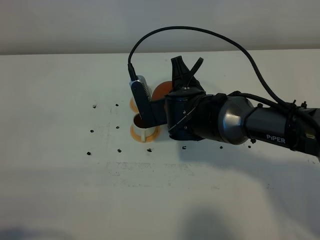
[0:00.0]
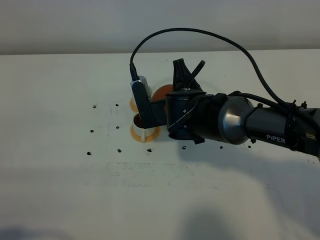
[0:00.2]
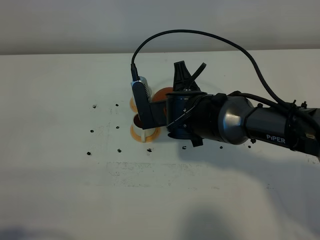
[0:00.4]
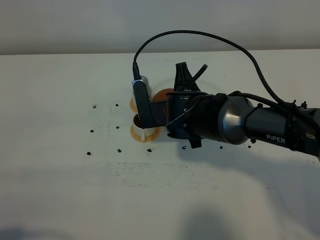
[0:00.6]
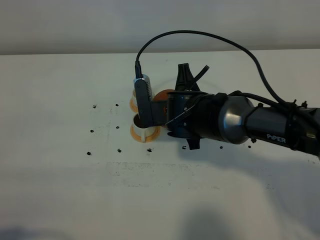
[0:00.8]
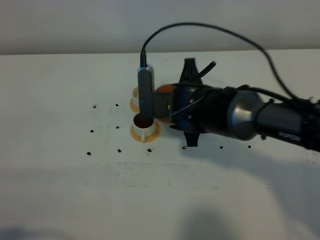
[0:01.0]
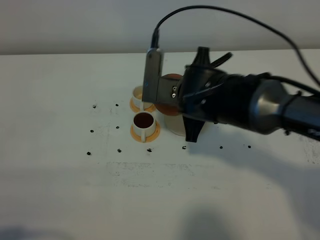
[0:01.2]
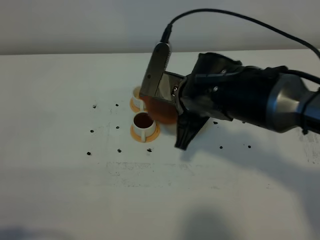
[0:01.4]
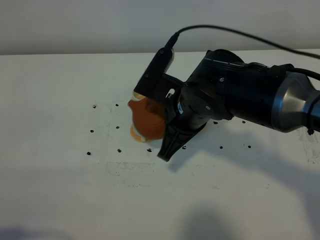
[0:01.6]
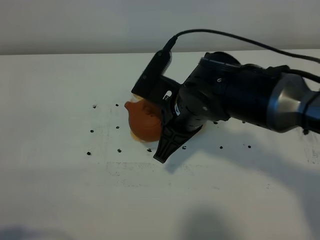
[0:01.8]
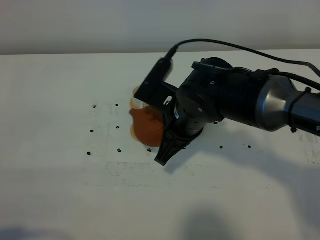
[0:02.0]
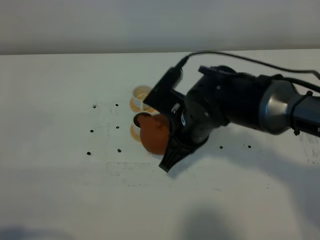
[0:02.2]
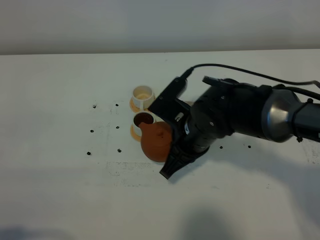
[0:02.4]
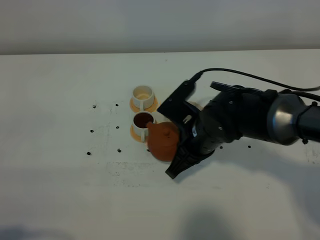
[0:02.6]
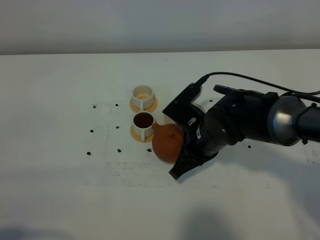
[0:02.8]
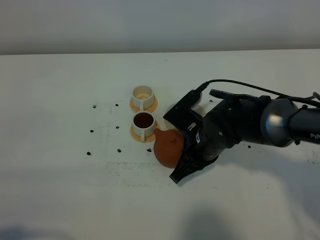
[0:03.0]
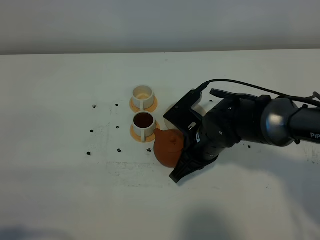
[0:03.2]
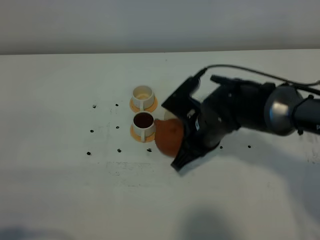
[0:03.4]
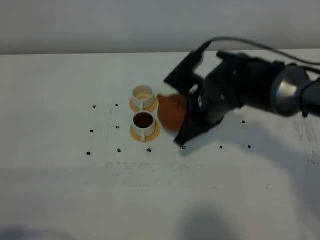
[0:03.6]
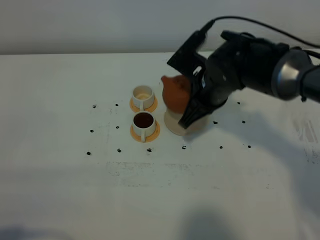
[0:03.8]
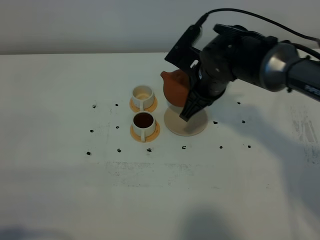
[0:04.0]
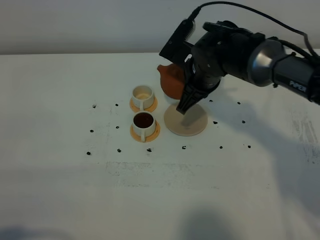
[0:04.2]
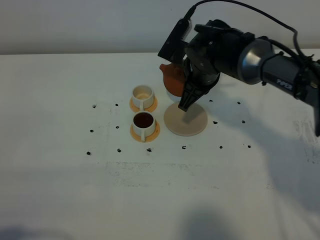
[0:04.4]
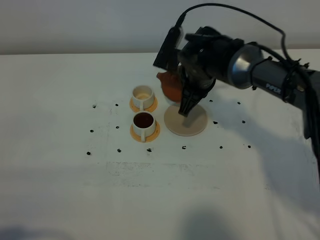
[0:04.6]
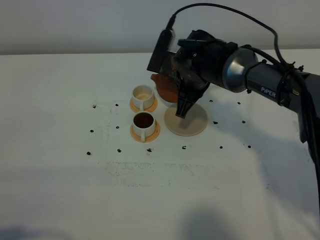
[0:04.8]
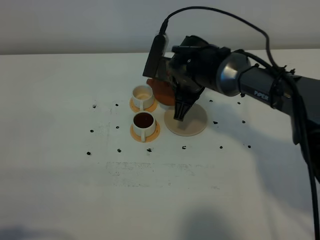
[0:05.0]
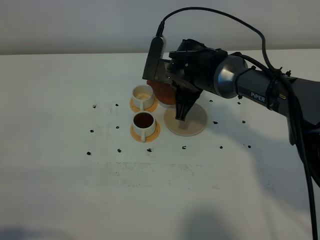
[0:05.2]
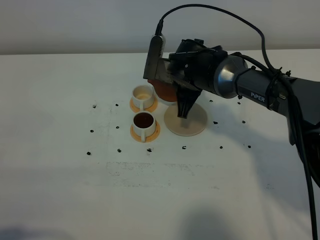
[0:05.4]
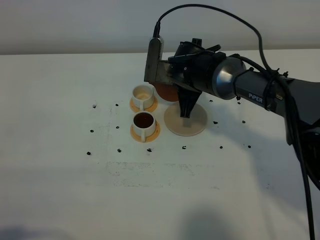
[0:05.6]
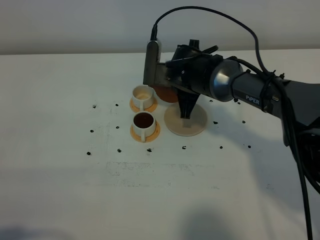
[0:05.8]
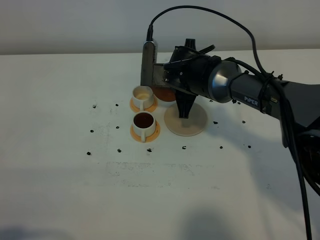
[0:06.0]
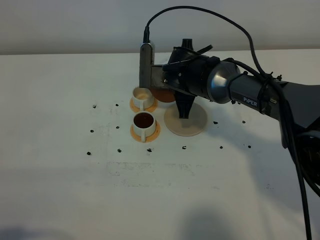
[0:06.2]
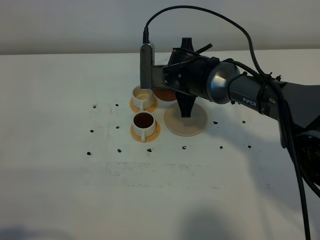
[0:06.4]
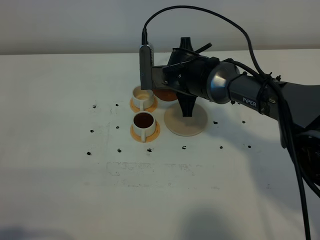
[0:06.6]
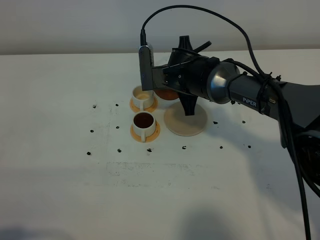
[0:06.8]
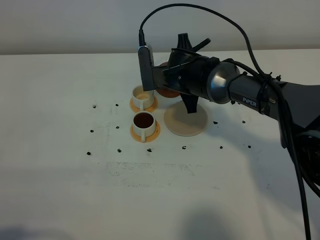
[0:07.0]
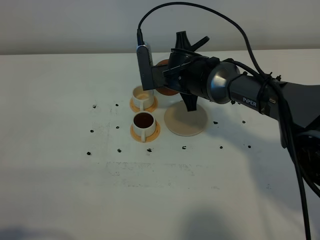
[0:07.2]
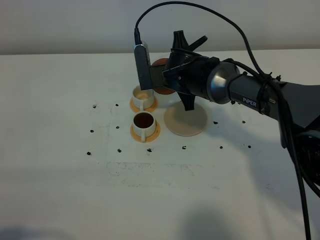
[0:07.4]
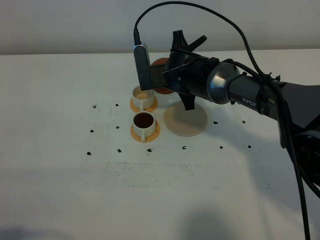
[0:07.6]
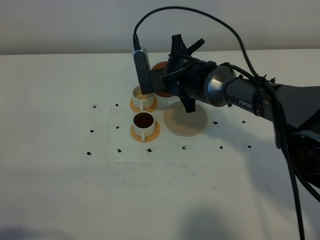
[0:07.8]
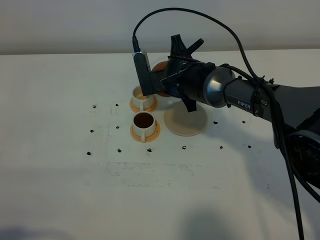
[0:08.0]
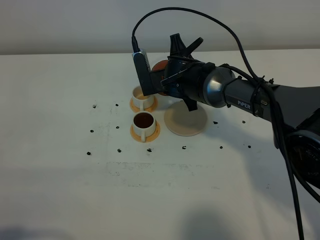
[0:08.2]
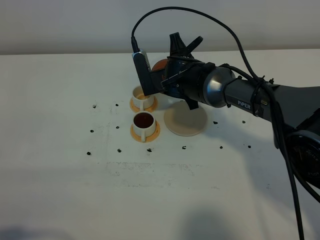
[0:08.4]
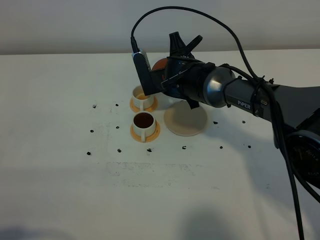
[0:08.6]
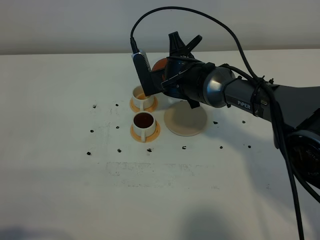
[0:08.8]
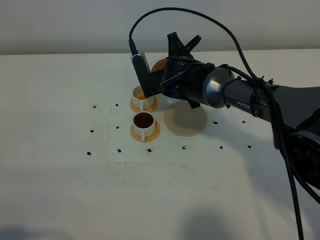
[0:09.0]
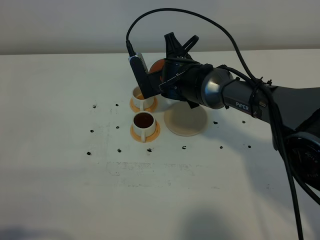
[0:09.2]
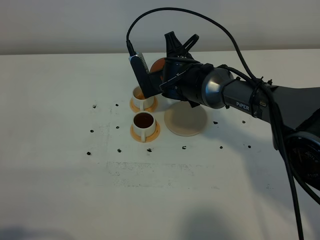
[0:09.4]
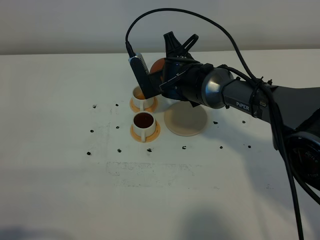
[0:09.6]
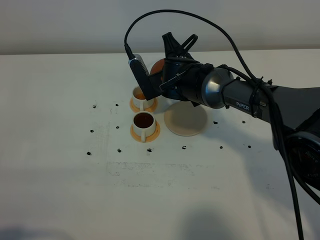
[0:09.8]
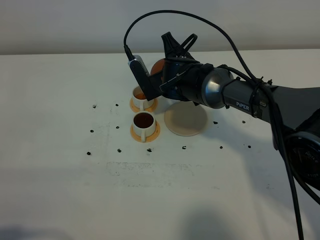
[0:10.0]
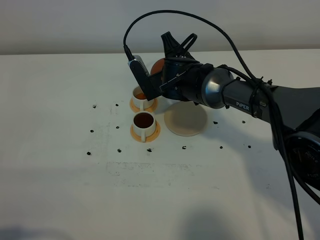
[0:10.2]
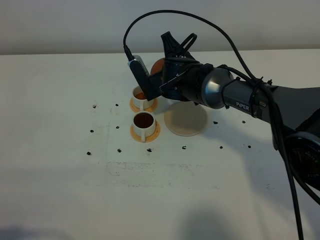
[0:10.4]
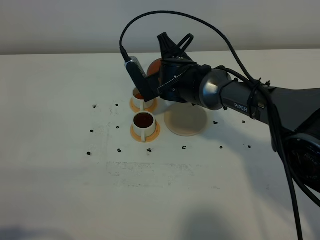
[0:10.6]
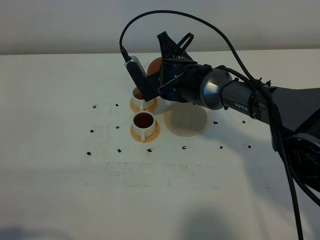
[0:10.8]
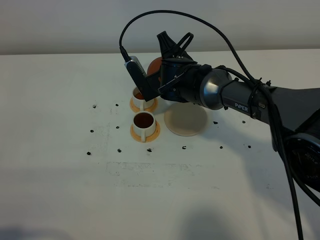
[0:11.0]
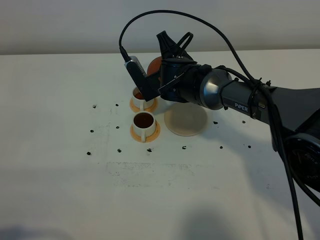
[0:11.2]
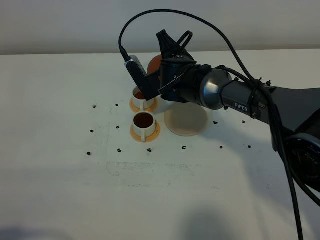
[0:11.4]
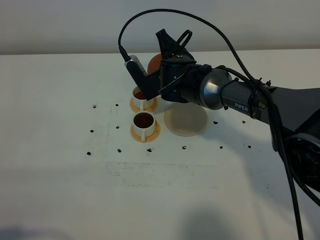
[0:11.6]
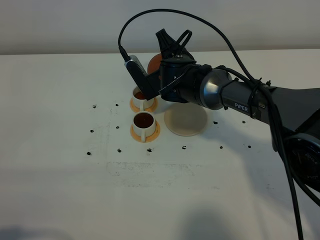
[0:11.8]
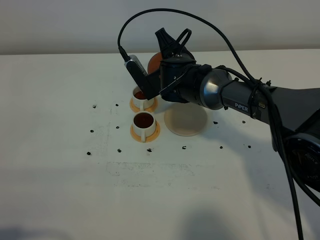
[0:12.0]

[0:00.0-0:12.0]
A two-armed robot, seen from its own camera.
Task of the whole recording: grasp the brown teapot and pour the tea into the two white teacups one by one, put the brown teapot back in its original place.
0:00.0 to 0:01.6: The right gripper heads upward and backward, covering approximately 10 cm.
0:01.6 to 0:03.0: The right gripper travels downward by some 10 cm.
0:03.0 to 0:04.4: The right gripper heads forward and upward, covering about 15 cm.
0:06.0 to 0:07.6: There are only small adjustments of the grippers.
0:07.6 to 0:10.4: The grippers stay close to where they were, moving slightly.
0:10.4 to 0:12.0: The grippers make only small movements.

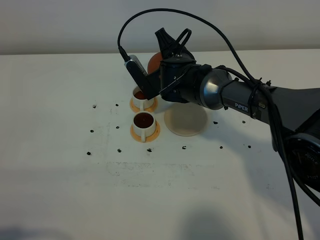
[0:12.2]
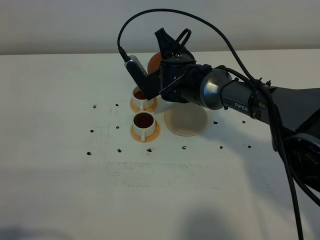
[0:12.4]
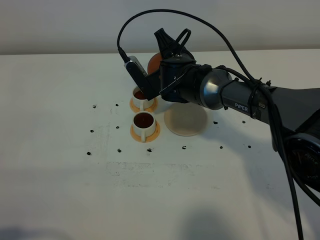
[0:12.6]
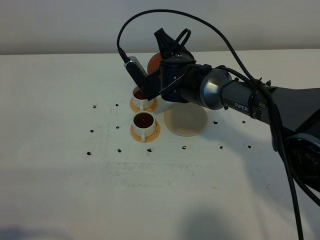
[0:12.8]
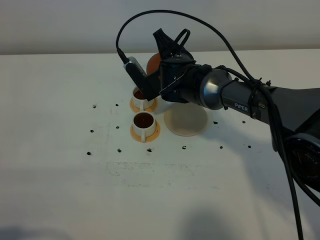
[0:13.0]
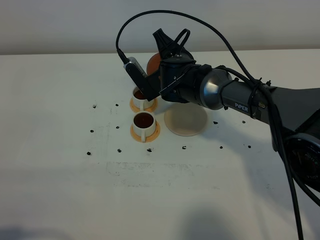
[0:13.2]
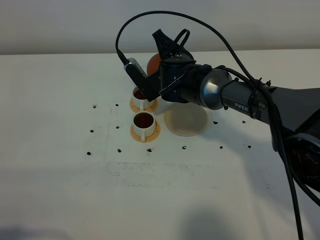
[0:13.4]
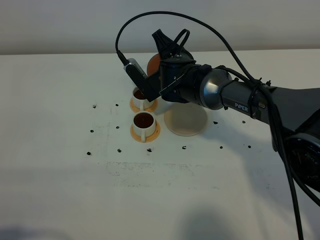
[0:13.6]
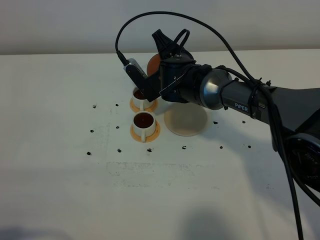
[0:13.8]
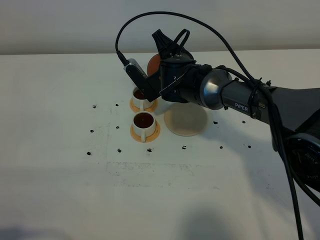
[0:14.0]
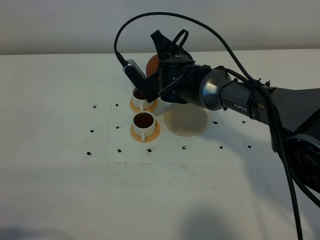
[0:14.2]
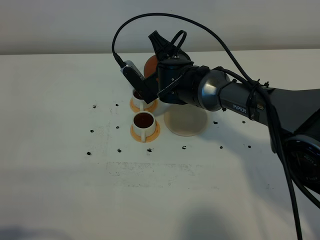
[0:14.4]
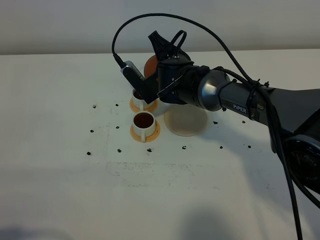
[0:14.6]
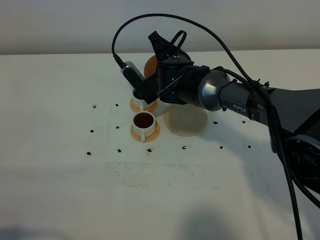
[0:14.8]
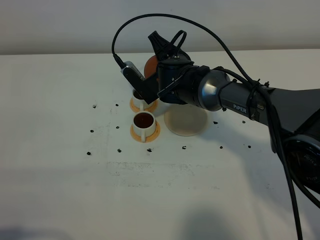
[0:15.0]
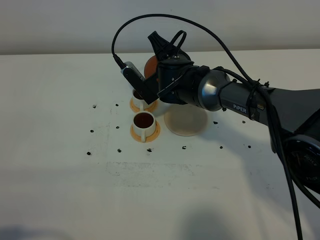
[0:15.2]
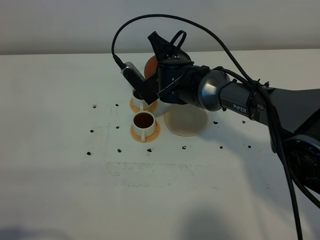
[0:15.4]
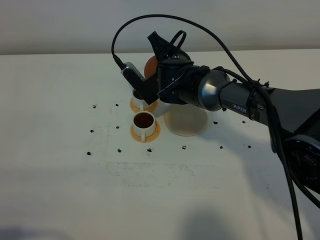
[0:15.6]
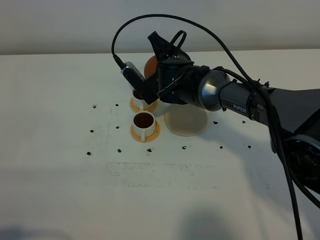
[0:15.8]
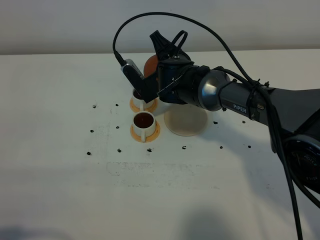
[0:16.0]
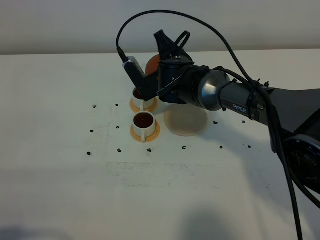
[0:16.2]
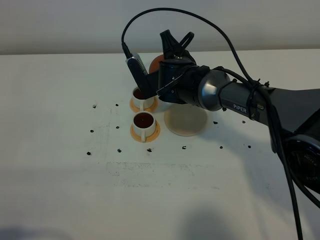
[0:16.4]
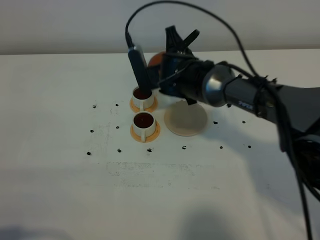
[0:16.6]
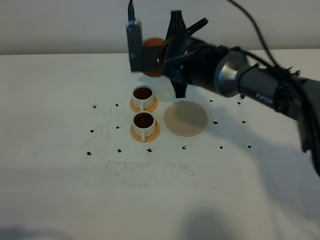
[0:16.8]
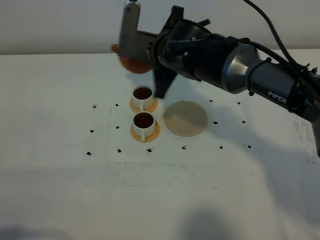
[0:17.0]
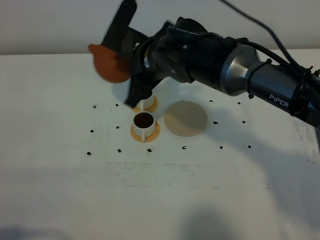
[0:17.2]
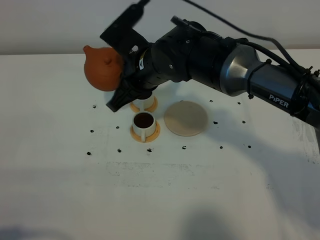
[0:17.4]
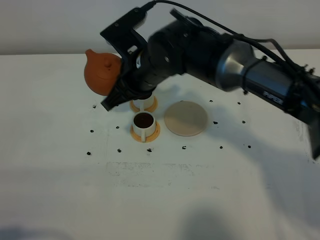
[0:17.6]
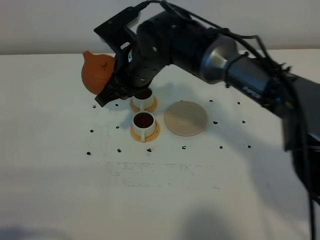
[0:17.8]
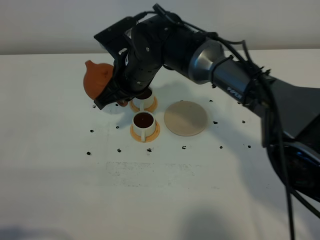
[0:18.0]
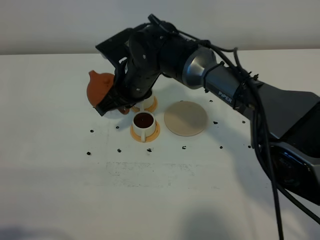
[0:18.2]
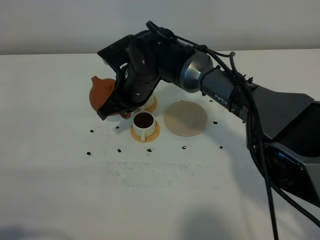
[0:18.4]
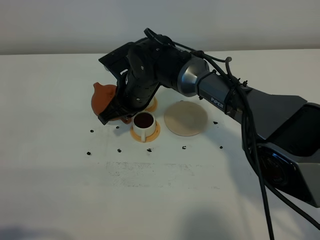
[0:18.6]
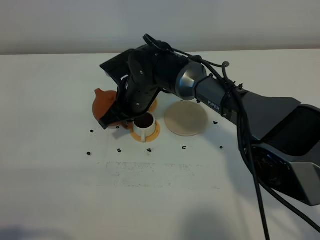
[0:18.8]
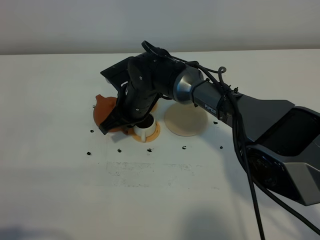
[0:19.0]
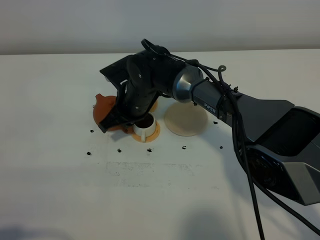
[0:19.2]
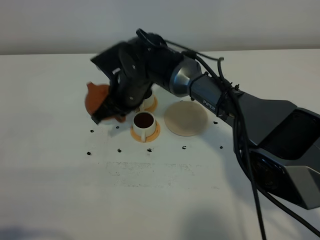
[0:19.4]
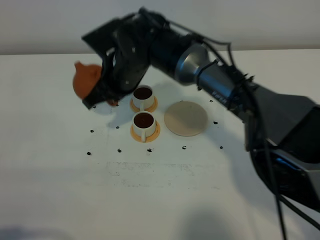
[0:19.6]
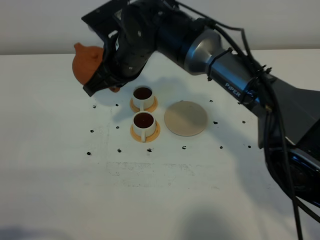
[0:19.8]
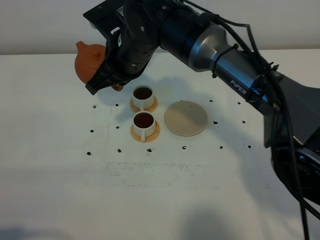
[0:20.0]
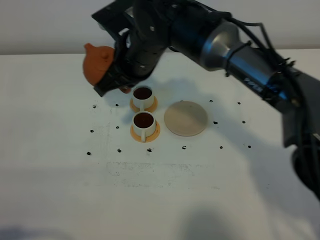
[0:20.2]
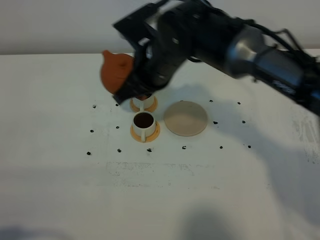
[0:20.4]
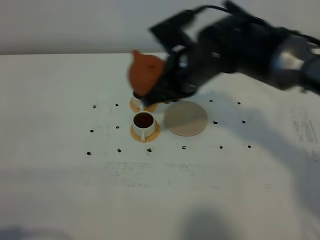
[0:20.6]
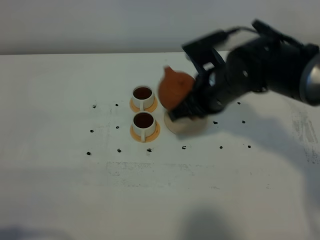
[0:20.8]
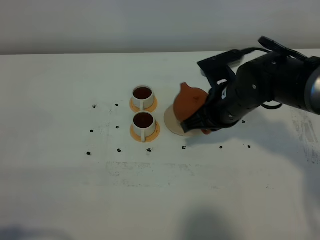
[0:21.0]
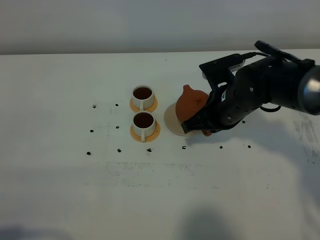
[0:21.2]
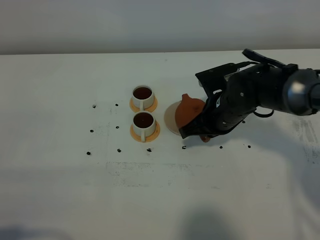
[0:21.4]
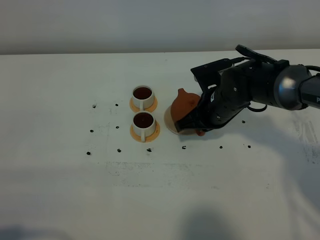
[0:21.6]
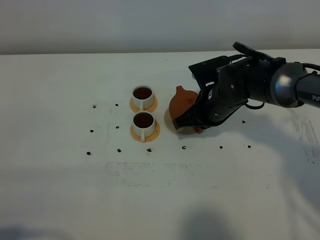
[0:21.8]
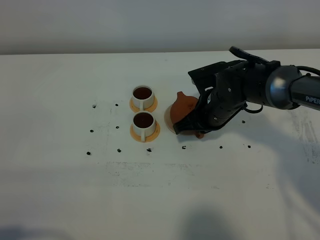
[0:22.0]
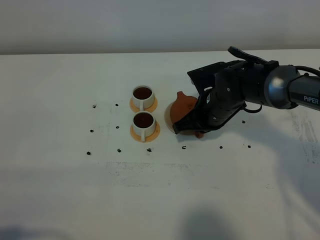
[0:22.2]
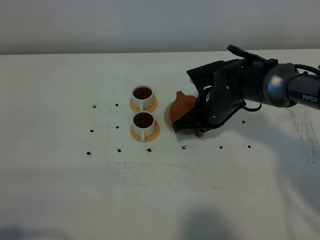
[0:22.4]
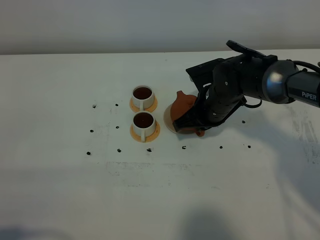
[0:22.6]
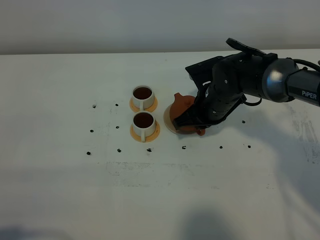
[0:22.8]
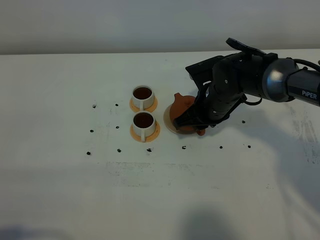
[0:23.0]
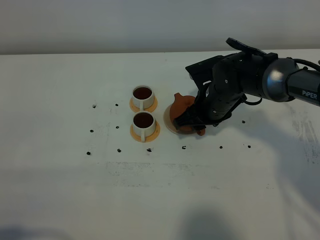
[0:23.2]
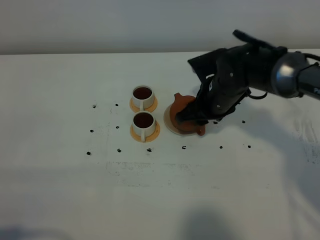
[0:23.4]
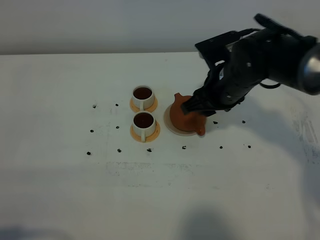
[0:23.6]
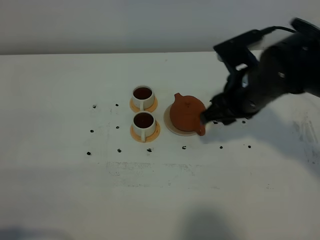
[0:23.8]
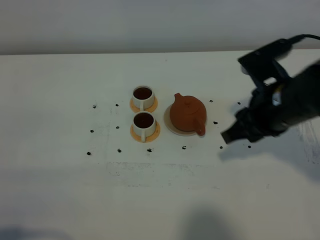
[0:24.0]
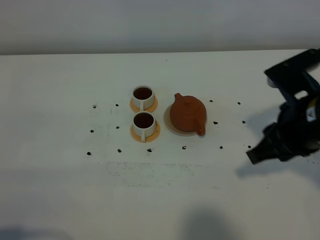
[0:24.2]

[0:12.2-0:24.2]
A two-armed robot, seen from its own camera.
Task of the whole recording: grasp the brown teapot and pour the tea into the two white teacups one by one, put the brown teapot back in its original place.
Step, 0:12.2 to 0:16.6: Pour tea into the teacup with the right gripper.
0:12.2 to 0:13.8: Both grippers stay put.
0:13.8 to 0:15.2: The two grippers keep their place.
0:16.6 to 0:18.2: The right gripper shifts approximately 5 cm to the left.
0:18.2 to 0:19.8: The right gripper shifts some 5 cm upward.
0:19.8 to 0:21.2: The right gripper travels to the right and downward by approximately 20 cm.
0:21.2 to 0:22.6: The grippers move only a little.
0:22.6 to 0:24.2: The right gripper shifts about 25 cm backward, upward and to the right, and opens its fingers.
